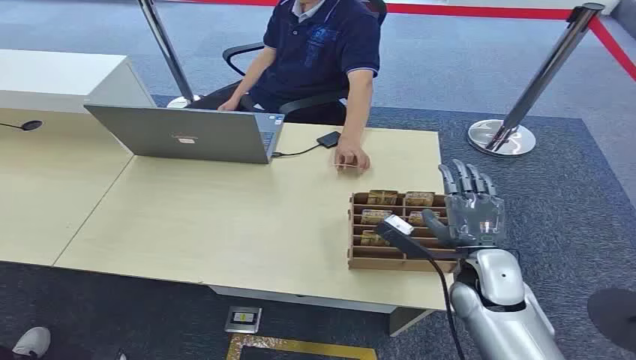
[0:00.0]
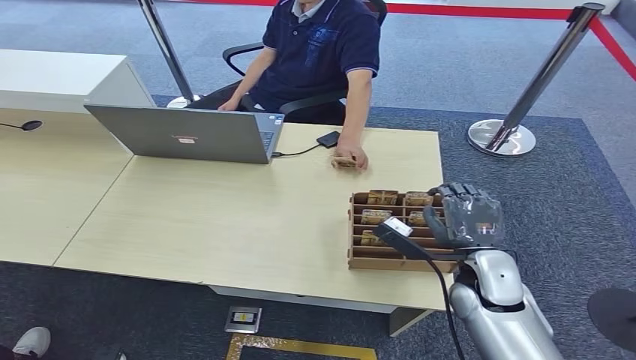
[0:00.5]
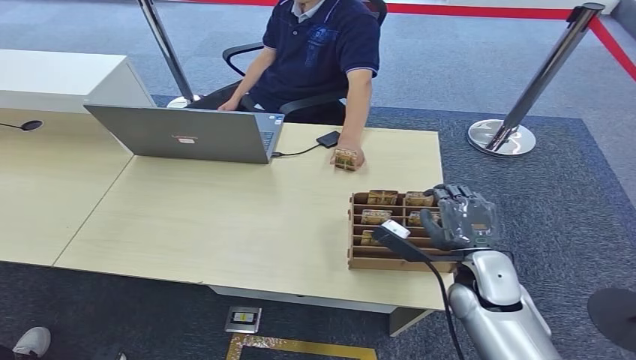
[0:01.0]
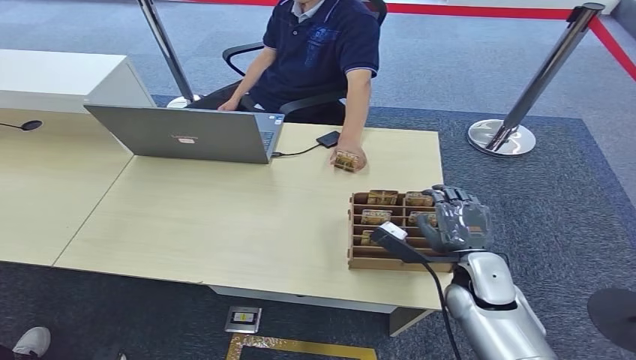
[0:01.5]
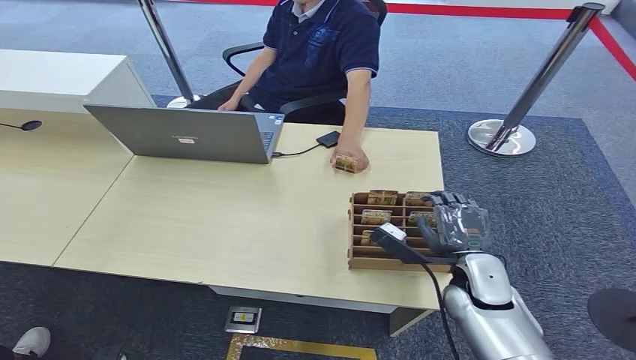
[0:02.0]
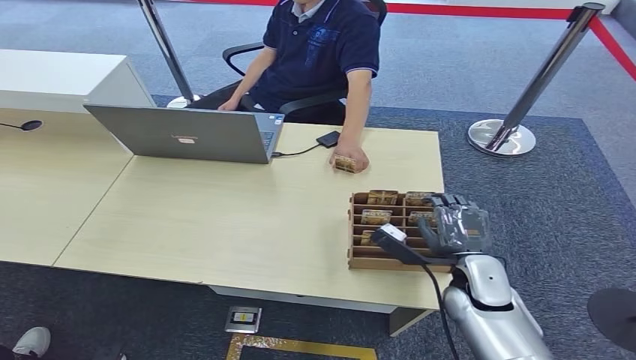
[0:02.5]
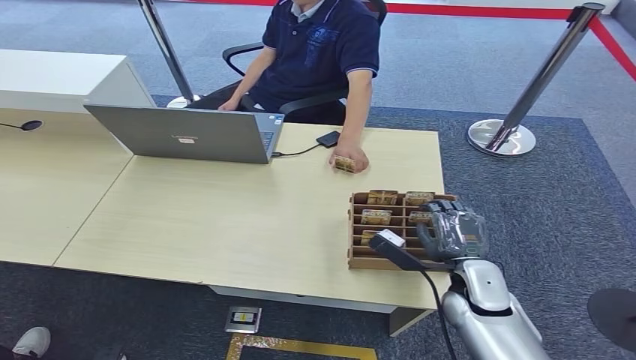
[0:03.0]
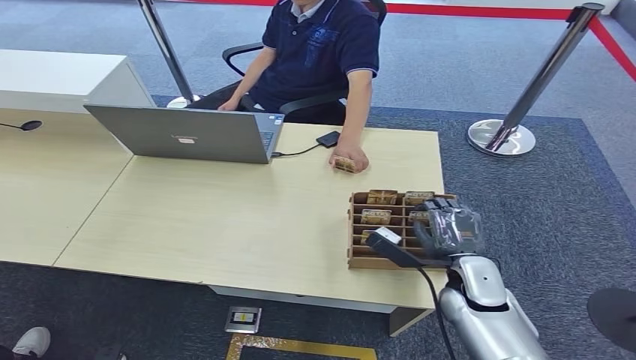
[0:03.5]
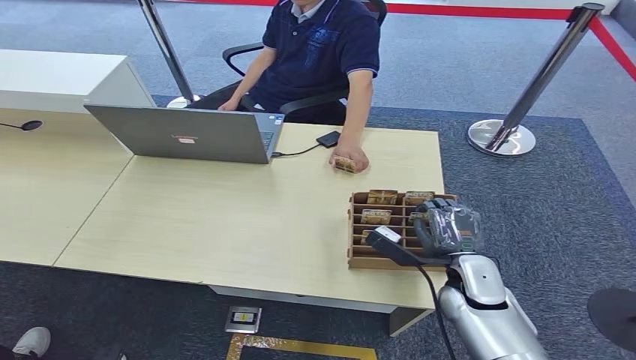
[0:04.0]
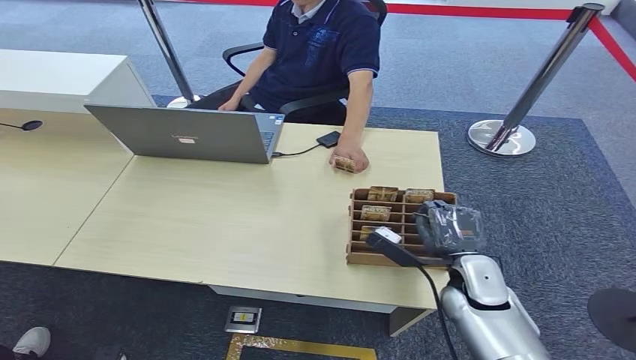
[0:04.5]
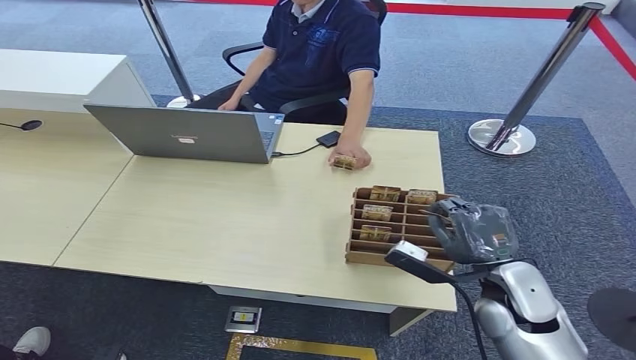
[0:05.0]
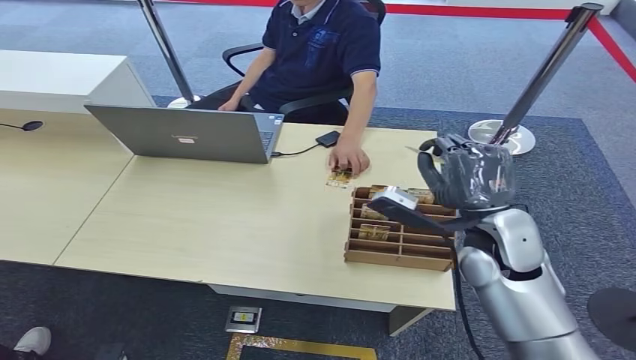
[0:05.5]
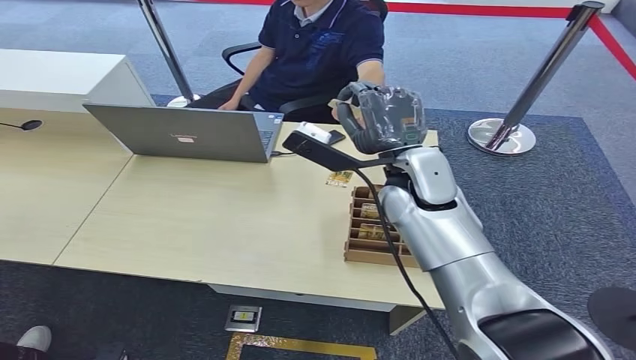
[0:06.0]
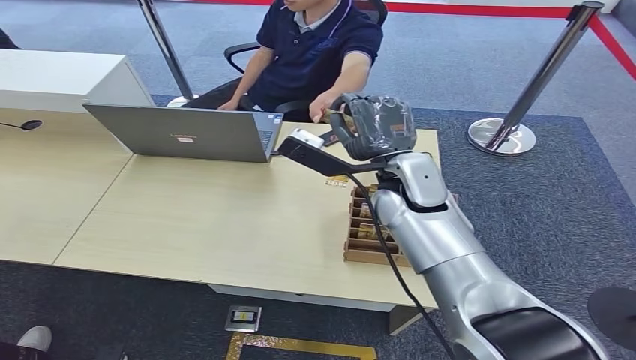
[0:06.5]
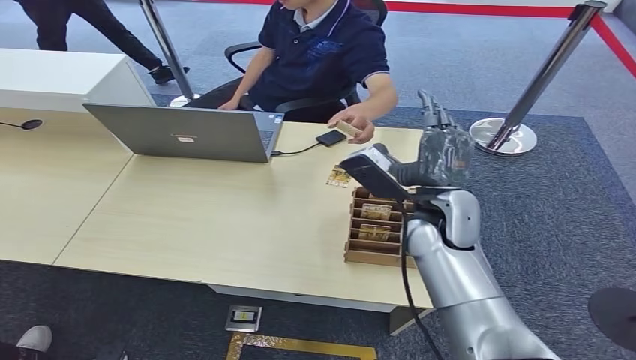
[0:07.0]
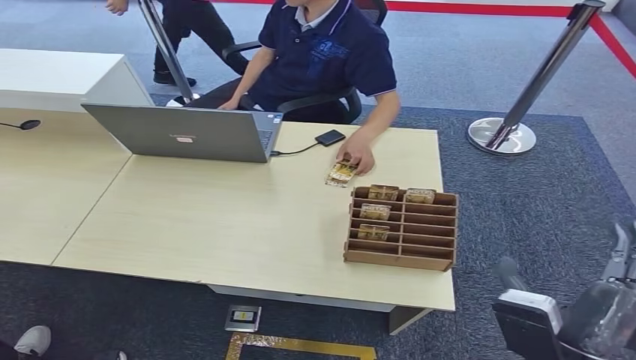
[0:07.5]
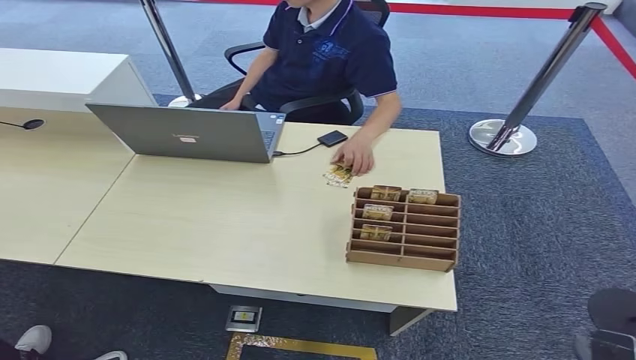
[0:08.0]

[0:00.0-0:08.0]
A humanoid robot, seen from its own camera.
Step, 0:00.0 to 0:05.0: Pick up the room card from the card holder.
Step, 0:05.5 to 0:08.0: Hand the room card to the target.
0:02.0 to 0:04.0: There are only small adjustments of the hands.
0:04.0 to 0:06.0: The right hand shifts approximately 25 cm upward, to the left and forward.
0:06.0 to 0:08.0: The right hand moves backward, downward and to the right, some 50 cm.
